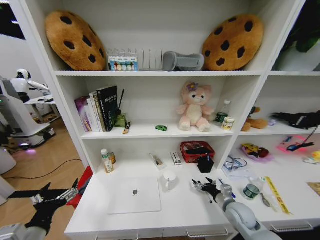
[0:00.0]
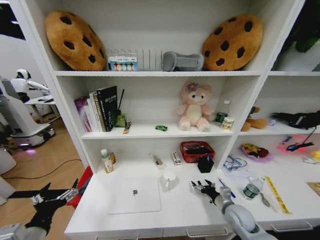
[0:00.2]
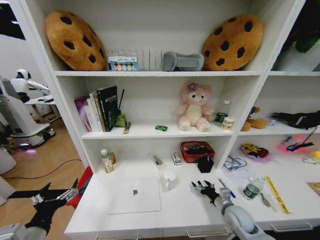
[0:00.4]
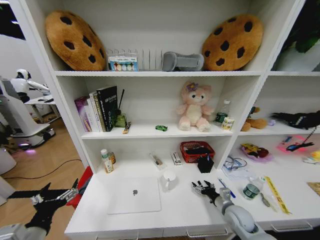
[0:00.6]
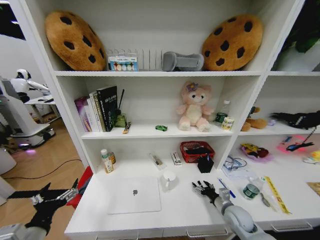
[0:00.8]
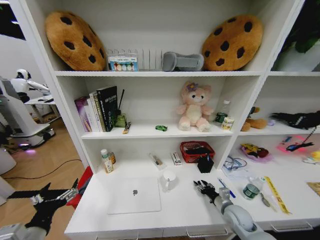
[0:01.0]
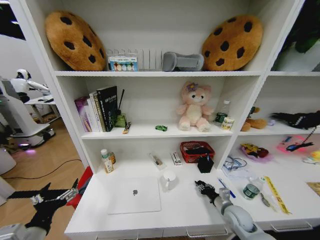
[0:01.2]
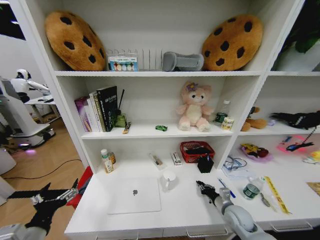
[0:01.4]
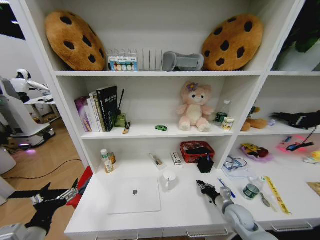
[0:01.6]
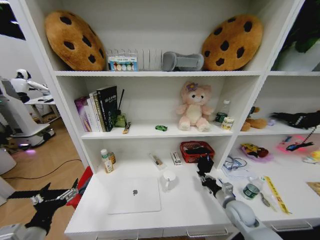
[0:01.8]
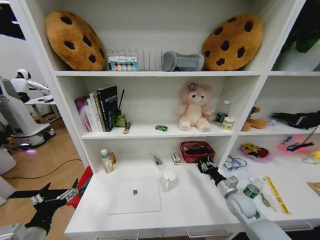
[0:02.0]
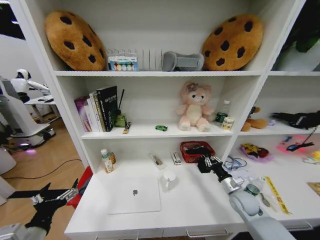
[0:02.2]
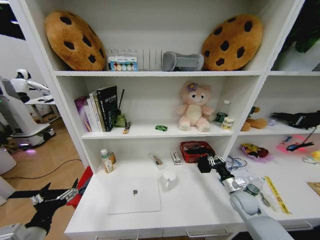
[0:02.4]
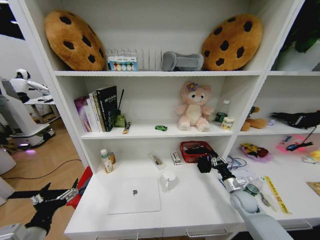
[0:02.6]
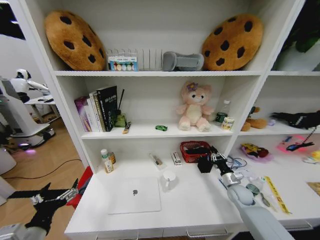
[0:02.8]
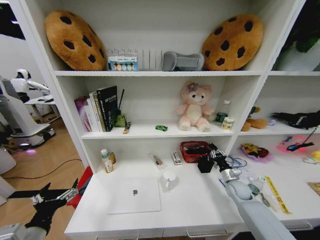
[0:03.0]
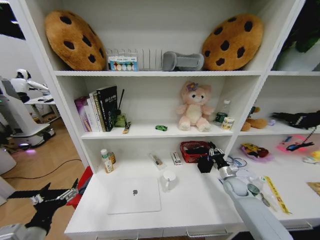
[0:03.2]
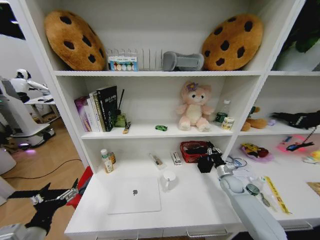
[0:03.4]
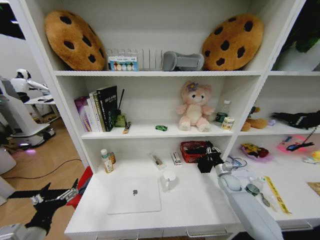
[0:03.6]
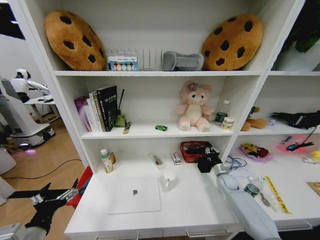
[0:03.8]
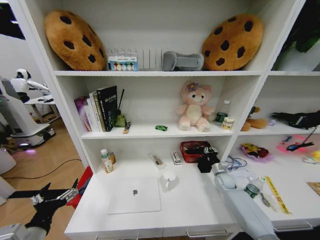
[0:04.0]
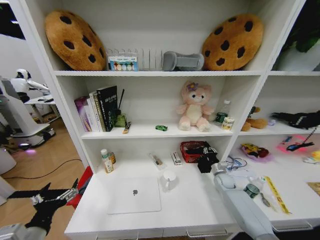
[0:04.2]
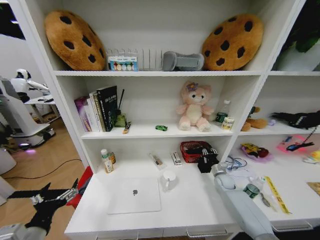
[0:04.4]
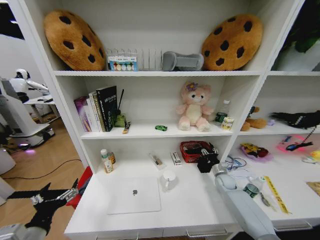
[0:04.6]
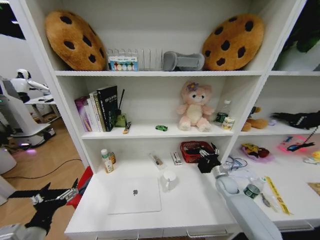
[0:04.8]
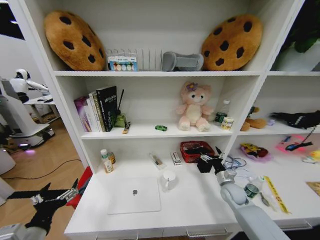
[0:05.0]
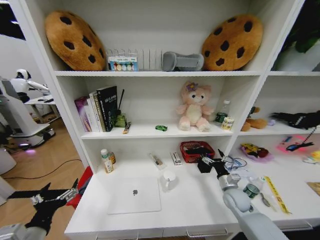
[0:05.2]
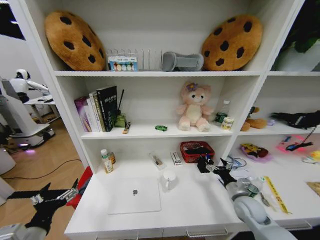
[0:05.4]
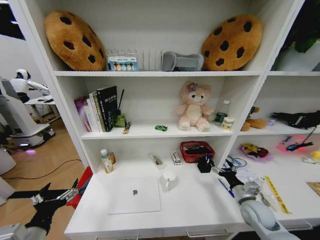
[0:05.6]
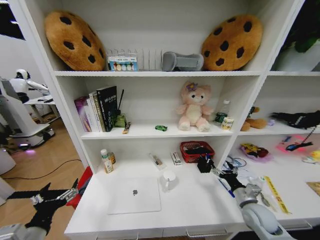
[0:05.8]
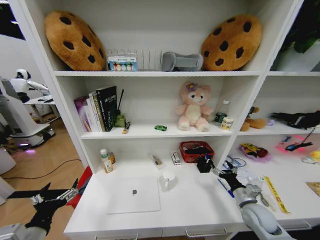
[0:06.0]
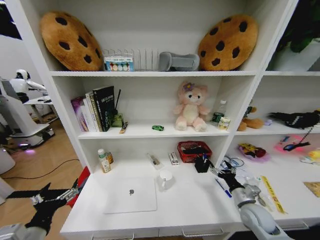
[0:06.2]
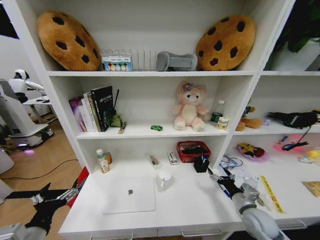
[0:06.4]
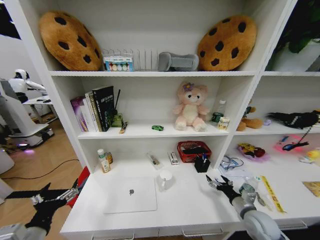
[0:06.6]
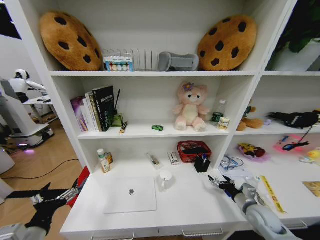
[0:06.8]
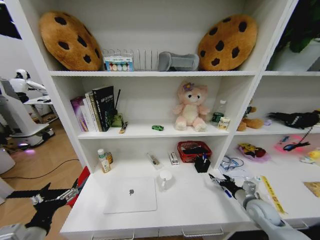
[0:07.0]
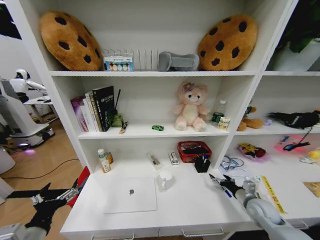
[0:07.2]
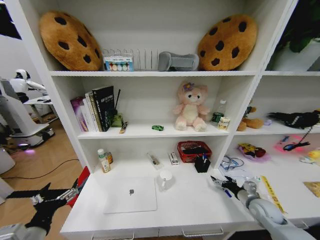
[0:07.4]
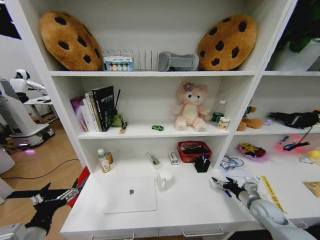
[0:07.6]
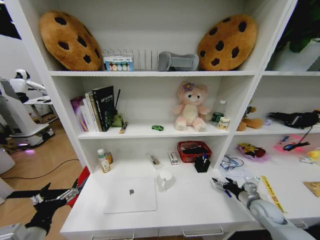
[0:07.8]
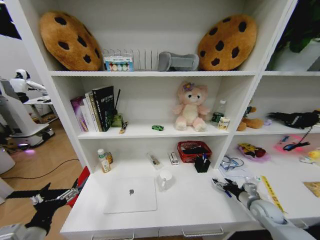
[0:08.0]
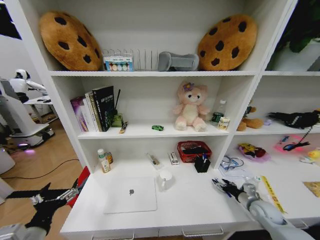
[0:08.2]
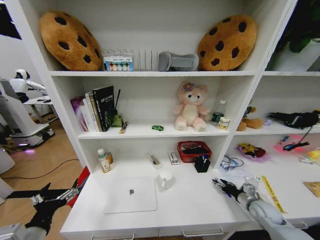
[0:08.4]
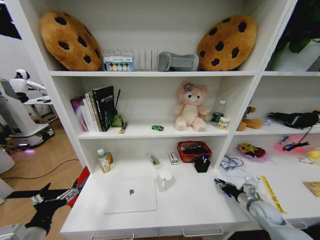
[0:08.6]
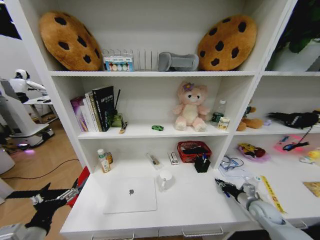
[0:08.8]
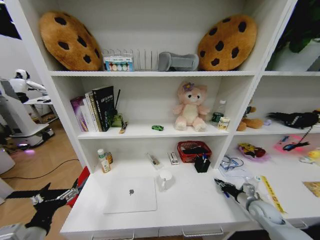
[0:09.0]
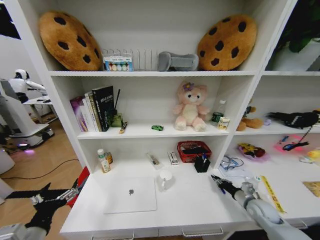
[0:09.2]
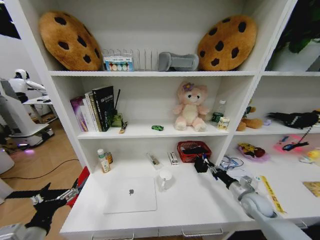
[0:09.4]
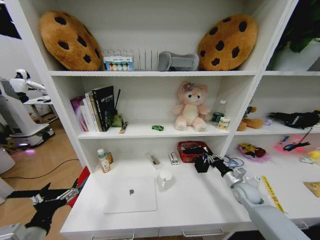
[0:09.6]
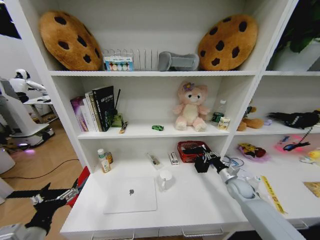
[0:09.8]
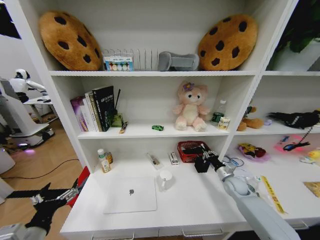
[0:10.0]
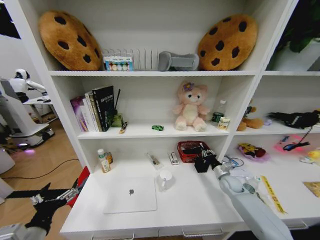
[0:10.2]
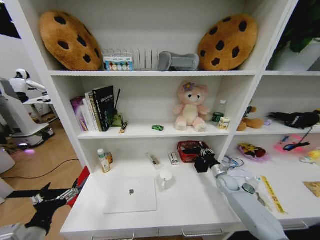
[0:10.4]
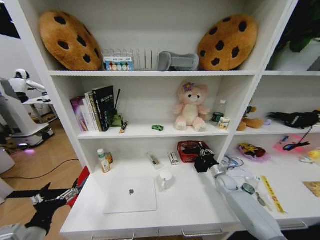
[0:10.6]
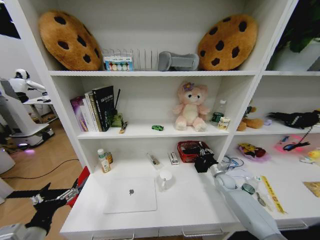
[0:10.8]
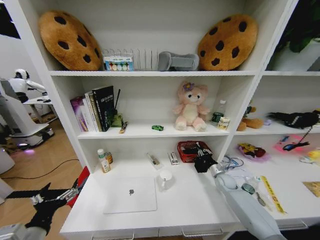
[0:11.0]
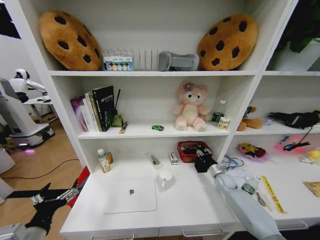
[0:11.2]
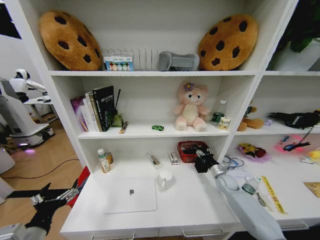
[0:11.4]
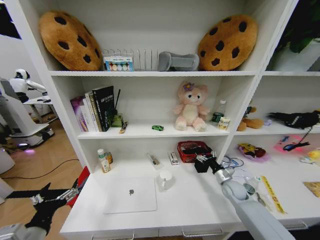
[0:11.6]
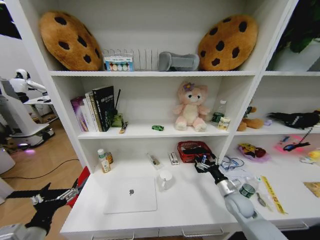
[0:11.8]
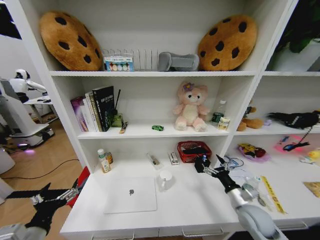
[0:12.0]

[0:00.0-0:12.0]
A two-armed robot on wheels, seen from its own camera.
Task of the whole recording: Organize the objects on the table.
0:00.0 to 0:01.6: The right gripper closes.
0:01.6 to 0:03.0: The right gripper shifts approximately 10 cm forward and to the right.
0:03.0 to 0:04.4: The right gripper moves forward, approximately 5 cm.
0:04.4 to 0:06.0: The right gripper is displaced backward and upward by some 20 cm, and opens.
0:06.0 to 0:07.6: The right gripper travels to the right by roughly 5 cm.
0:07.6 to 0:09.0: The right gripper closes.
0:09.0 to 0:10.4: The right gripper goes approximately 15 cm forward and to the left.
0:10.4 to 0:12.0: The right gripper moves backward and upward, approximately 20 cm, and opens up.

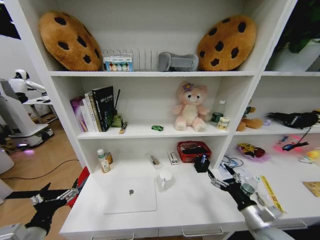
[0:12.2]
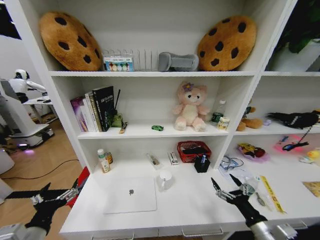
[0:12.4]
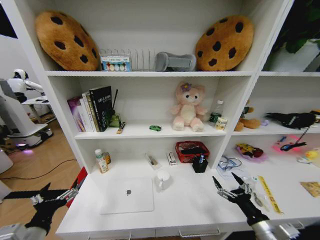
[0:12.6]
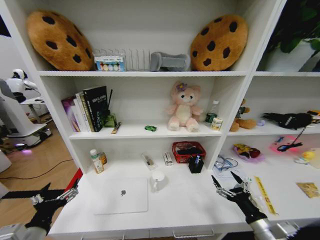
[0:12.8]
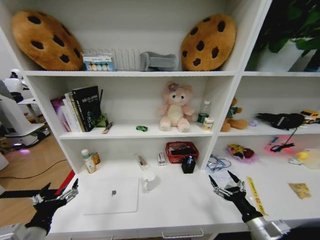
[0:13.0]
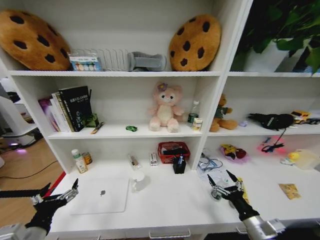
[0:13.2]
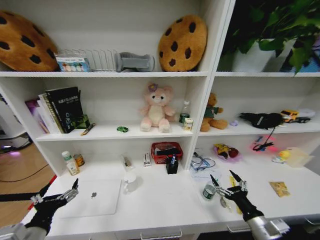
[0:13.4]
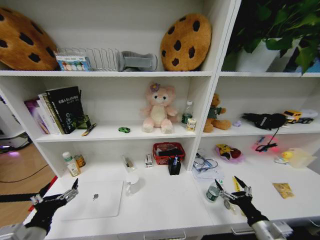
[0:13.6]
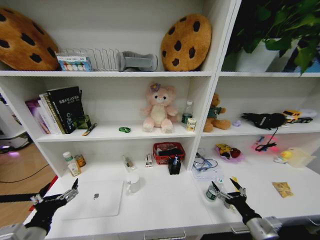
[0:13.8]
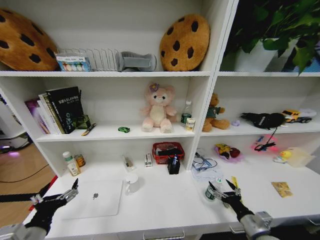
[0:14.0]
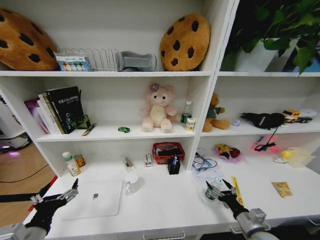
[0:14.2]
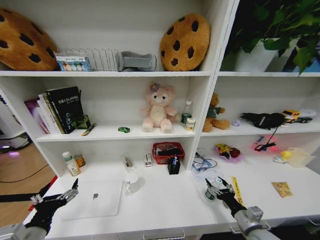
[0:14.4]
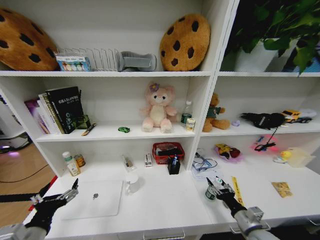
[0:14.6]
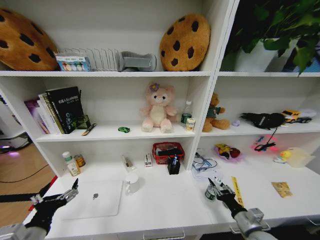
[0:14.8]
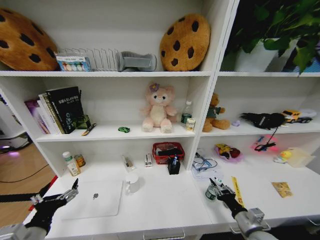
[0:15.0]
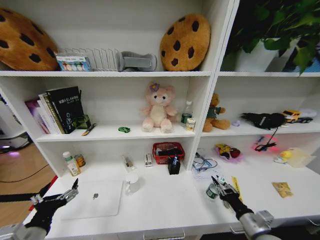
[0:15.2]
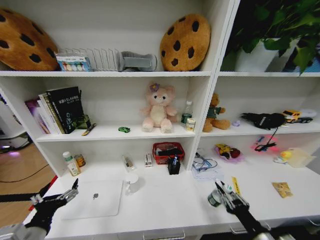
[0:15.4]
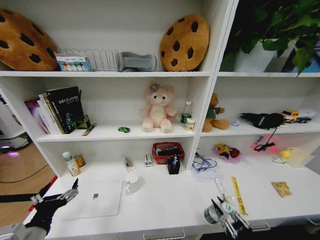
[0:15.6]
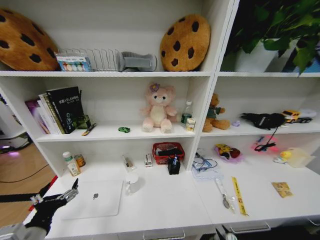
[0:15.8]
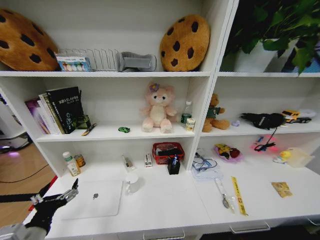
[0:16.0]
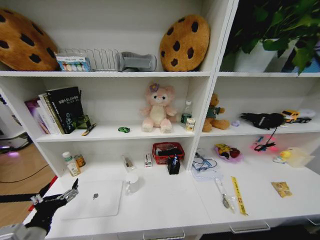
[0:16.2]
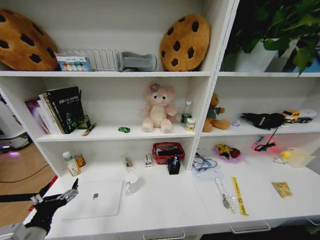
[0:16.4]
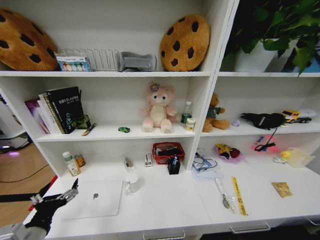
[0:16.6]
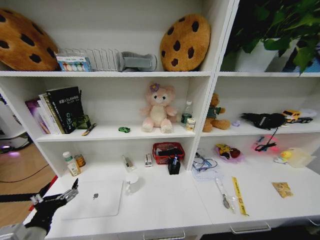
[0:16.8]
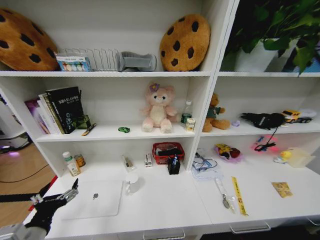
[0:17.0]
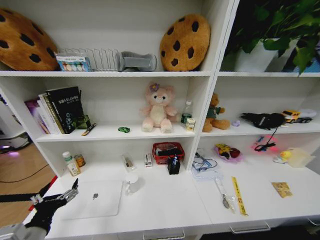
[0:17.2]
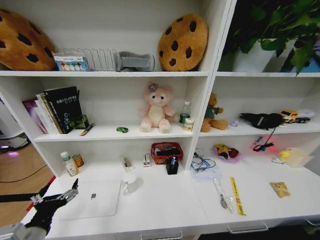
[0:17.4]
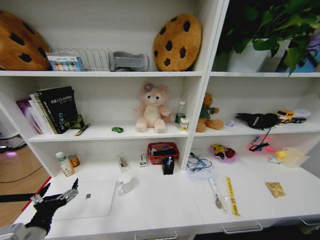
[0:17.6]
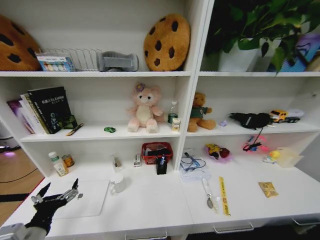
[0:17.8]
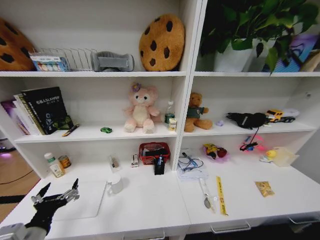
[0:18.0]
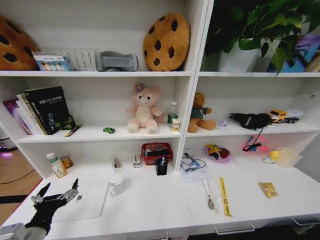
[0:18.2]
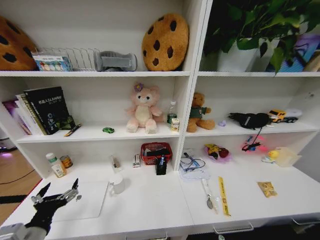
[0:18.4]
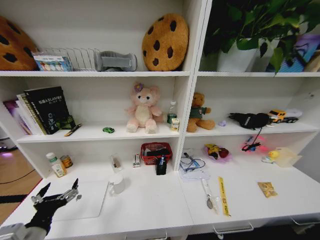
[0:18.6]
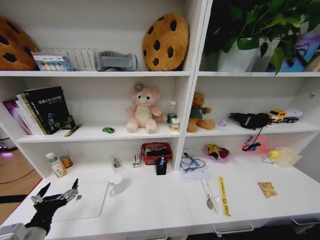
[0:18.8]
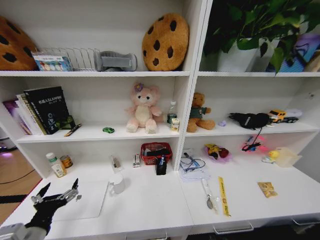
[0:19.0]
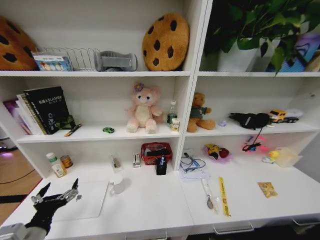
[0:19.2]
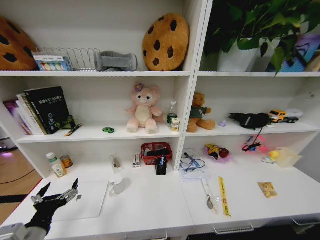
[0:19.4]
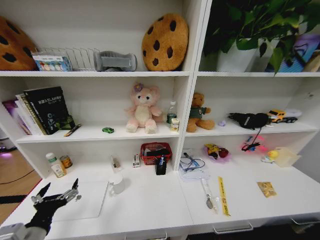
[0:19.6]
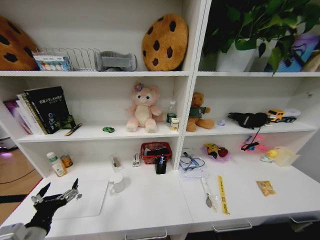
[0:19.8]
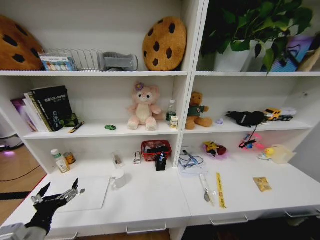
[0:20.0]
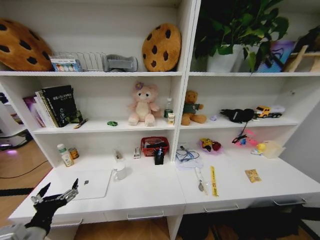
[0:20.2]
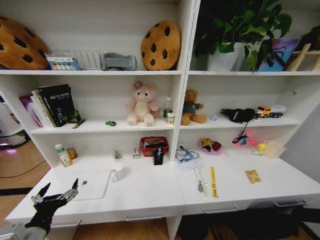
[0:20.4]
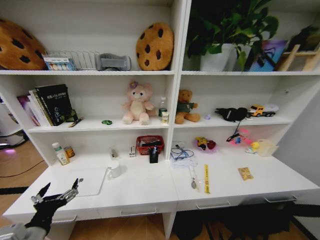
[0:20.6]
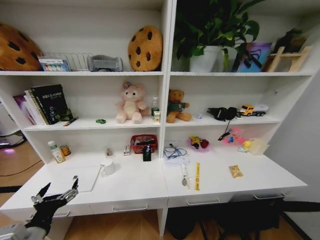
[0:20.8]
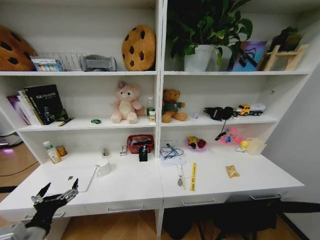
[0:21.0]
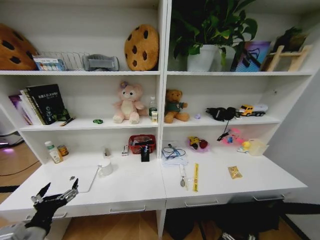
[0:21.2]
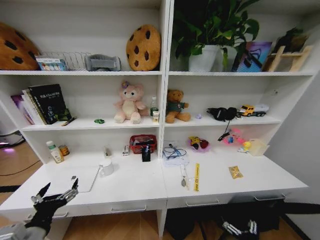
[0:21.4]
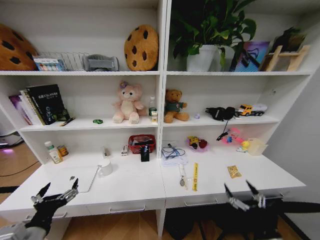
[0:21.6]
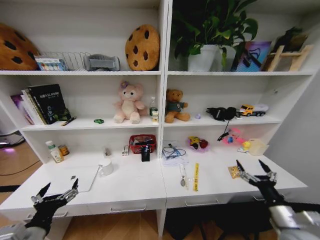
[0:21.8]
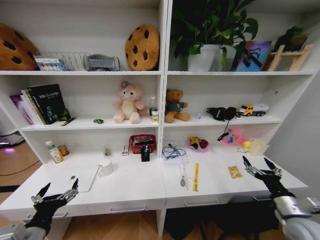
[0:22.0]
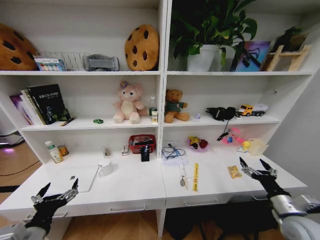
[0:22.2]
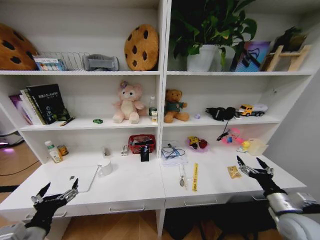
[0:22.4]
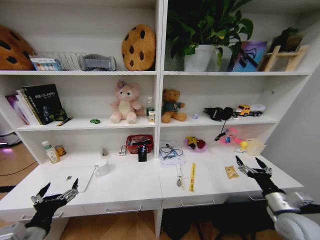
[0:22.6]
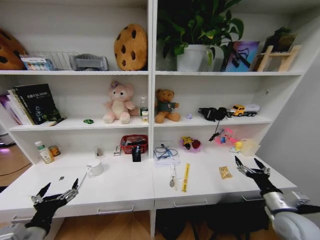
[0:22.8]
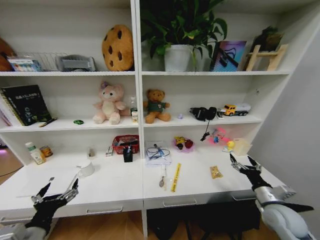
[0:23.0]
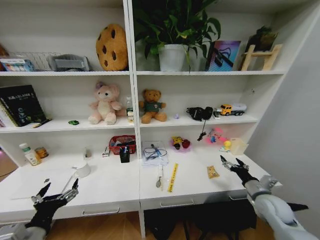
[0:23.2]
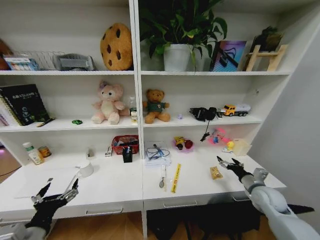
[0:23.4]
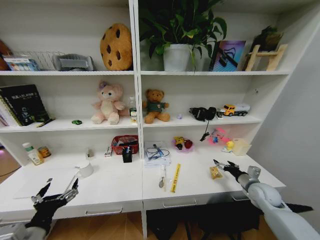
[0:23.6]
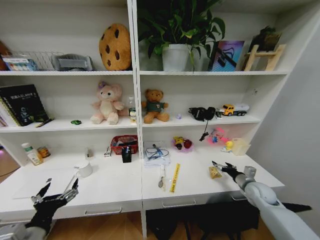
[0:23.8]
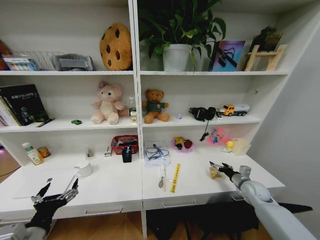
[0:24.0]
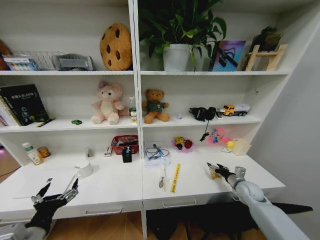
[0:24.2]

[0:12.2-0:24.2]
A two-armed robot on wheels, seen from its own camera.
Task of the whole recording: Organize the objects on the table.
0:13.8 to 0:15.2: The right gripper closes.
0:15.2 to 0:16.6: The right gripper heads backward and downward, covering about 30 cm.
0:16.6 to 0:18.2: The right gripper is displaced downward and forward by roughly 15 cm.
0:18.2 to 0:19.8: The right gripper travels upward by approximately 5 cm, moves some 10 cm forward and comes back, and opens.
0:19.8 to 0:21.2: The right gripper moves roughly 5 cm.
0:21.2 to 0:22.6: The right gripper travels upward and forward by some 30 cm.
0:22.6 to 0:24.2: The right gripper shifts approximately 15 cm forward and downward.
